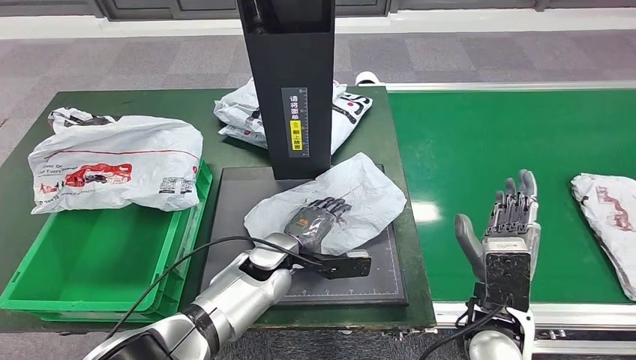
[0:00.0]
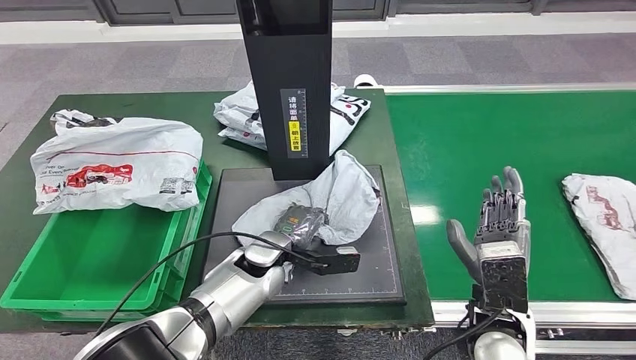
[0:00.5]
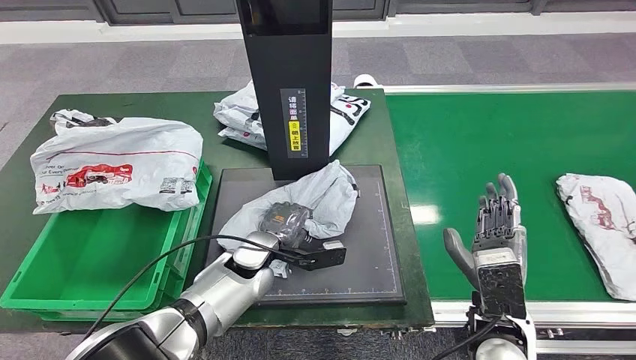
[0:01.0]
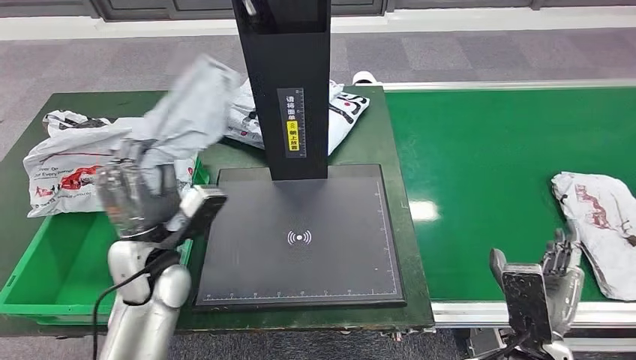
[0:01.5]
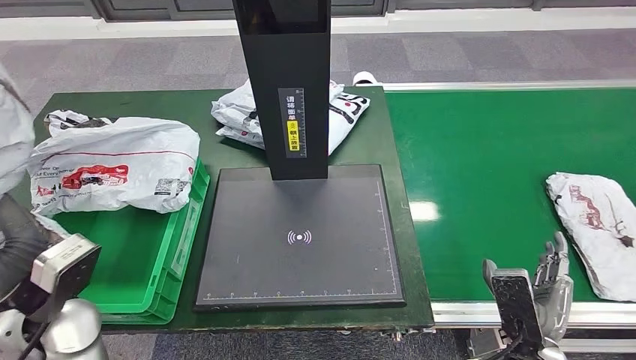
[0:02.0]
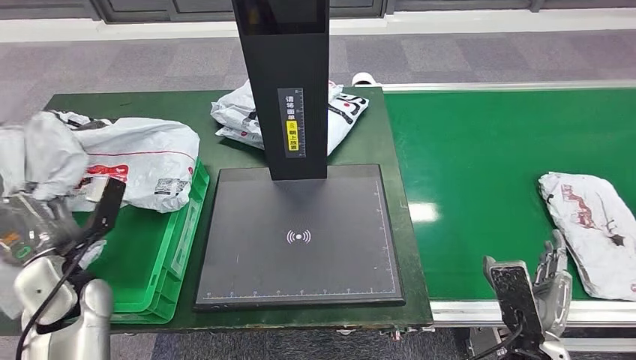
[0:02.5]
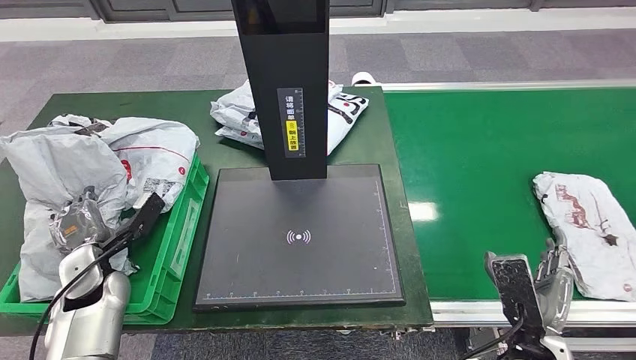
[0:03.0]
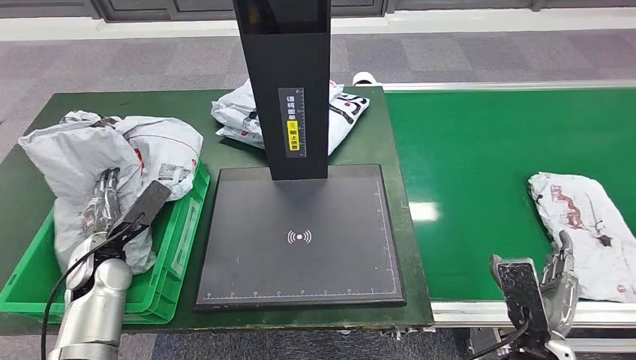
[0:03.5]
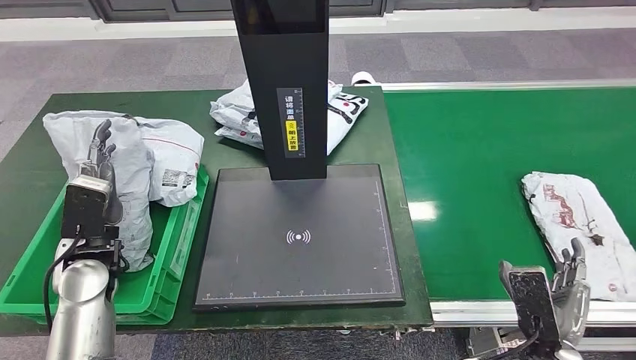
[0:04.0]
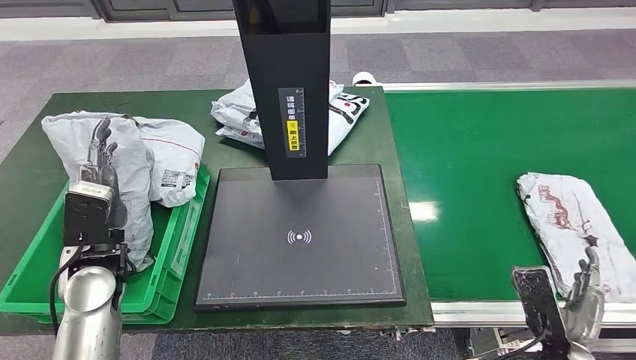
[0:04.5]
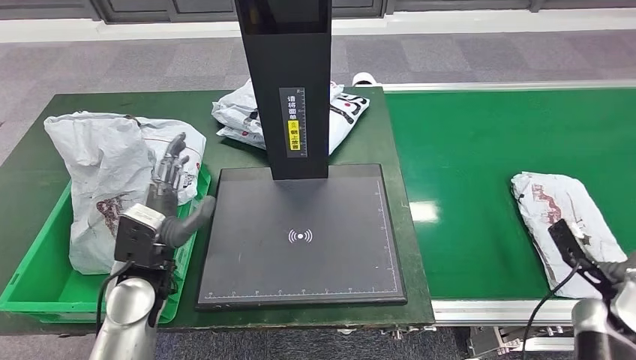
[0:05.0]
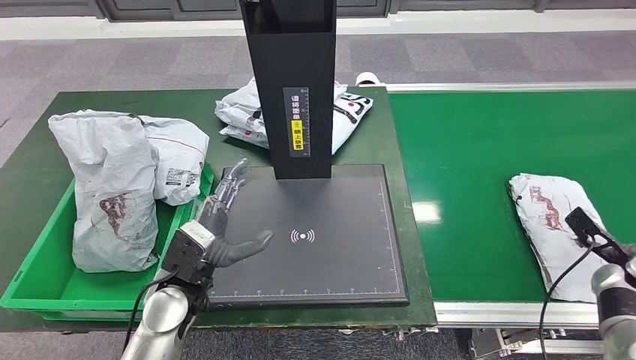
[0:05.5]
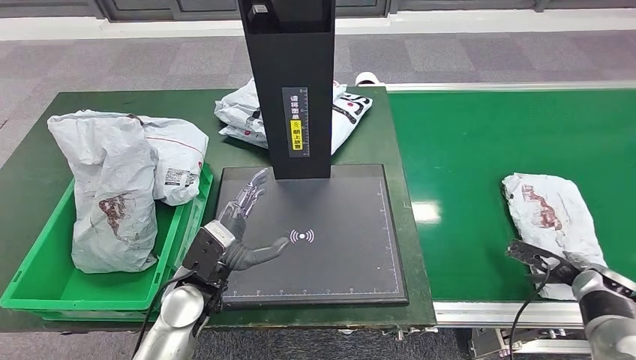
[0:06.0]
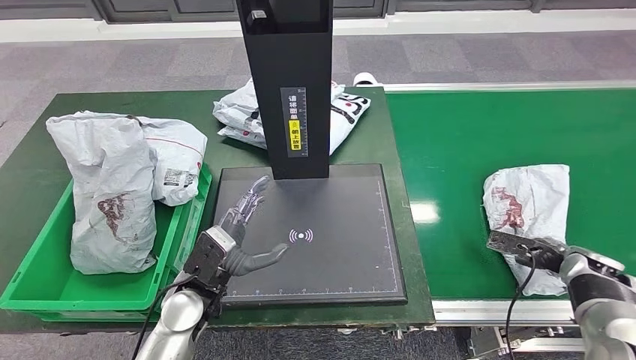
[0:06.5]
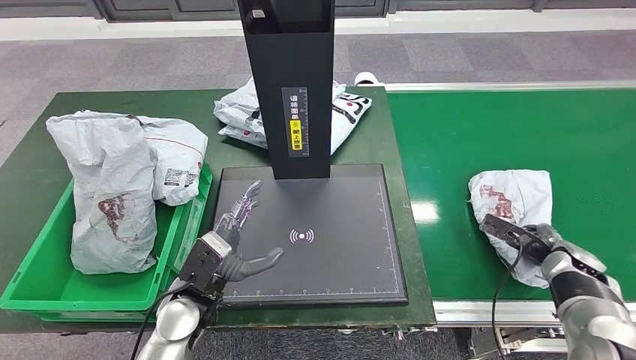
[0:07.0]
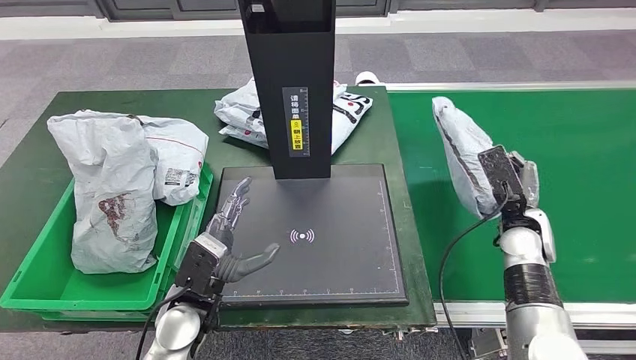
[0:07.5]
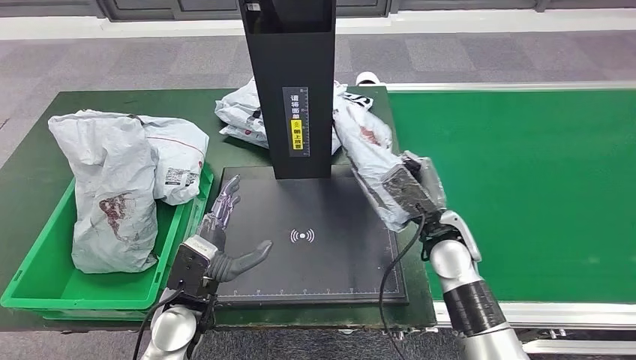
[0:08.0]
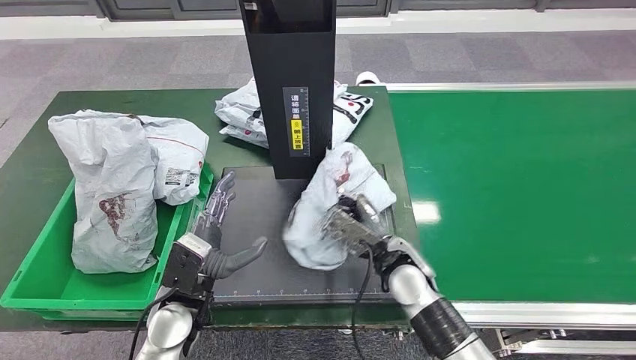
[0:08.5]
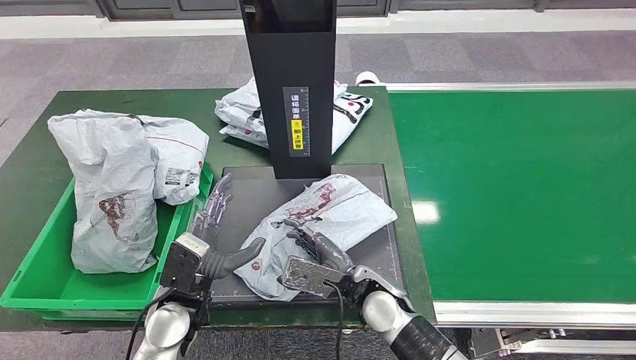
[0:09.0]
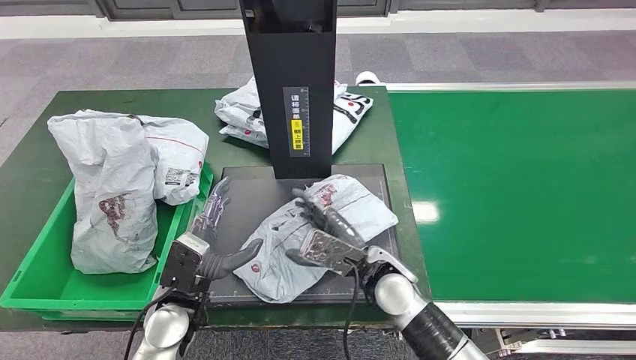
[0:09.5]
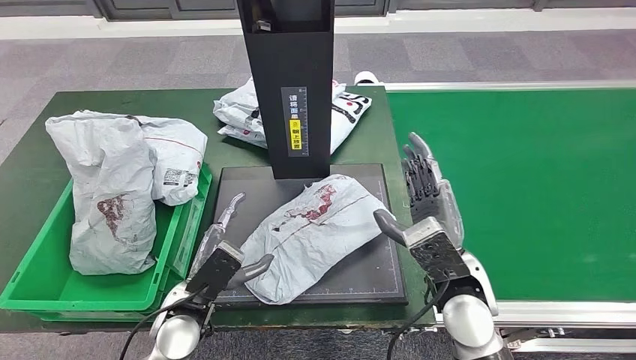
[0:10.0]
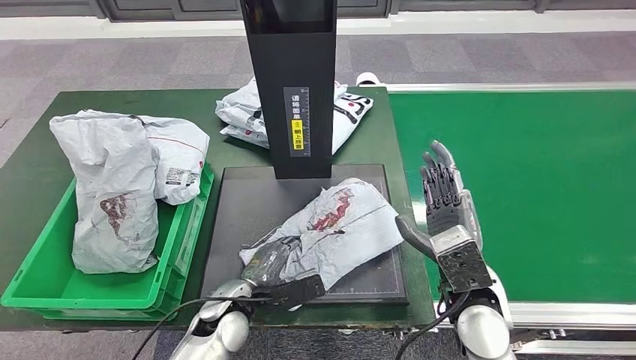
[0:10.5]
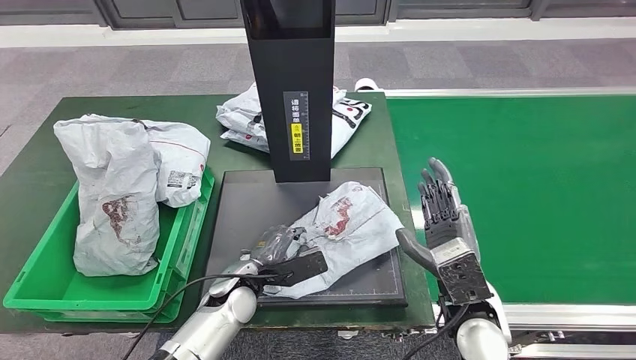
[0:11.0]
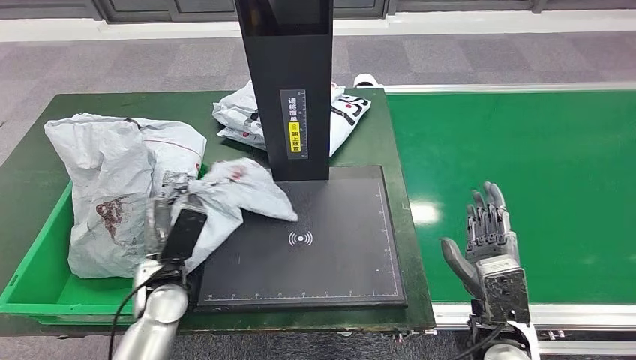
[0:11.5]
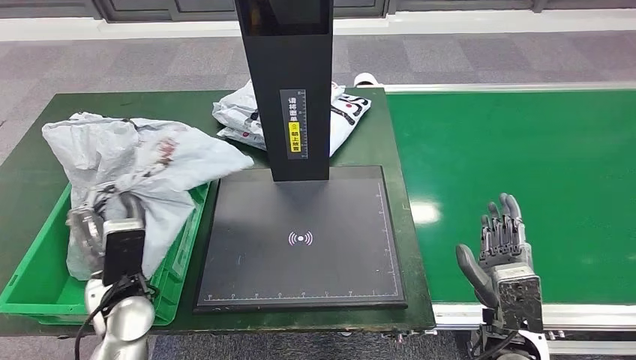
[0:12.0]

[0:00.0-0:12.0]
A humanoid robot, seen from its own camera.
Step, 0:02.0 to 0:05.0: Place the parcel into the delivery box.
Step, 0:05.5 to 0:08.5: Pick up the parcel from the conveyor belt.
Step, 0:09.0 to 0:11.0: Place the parcel onto the inbound machine.

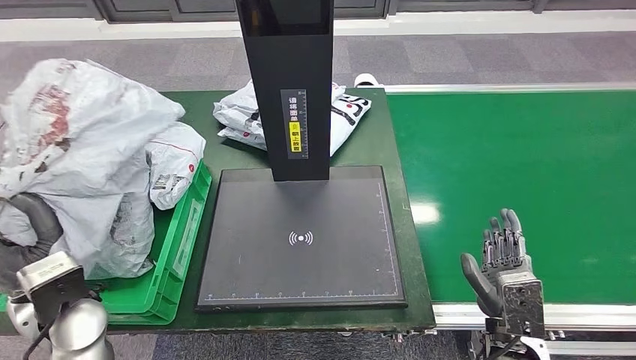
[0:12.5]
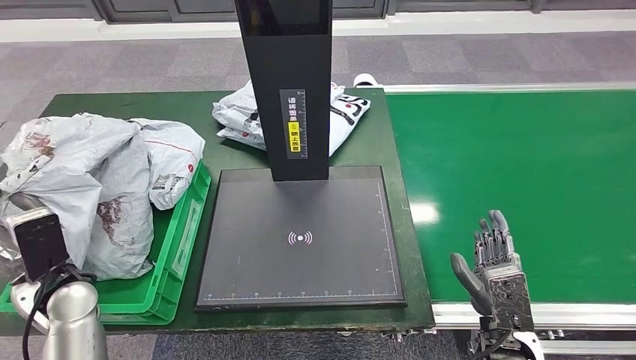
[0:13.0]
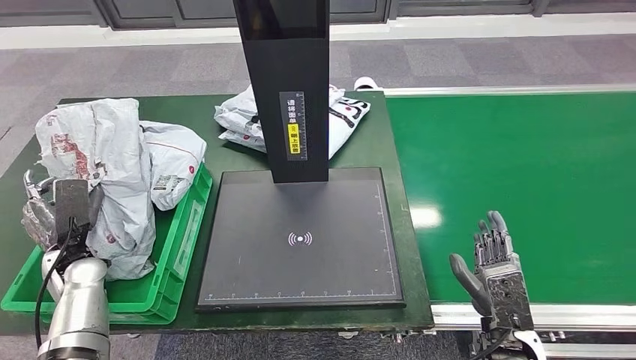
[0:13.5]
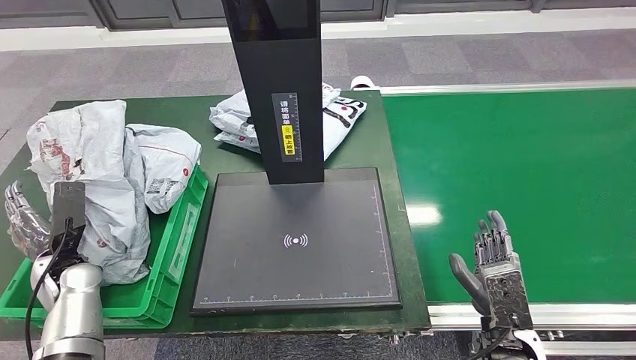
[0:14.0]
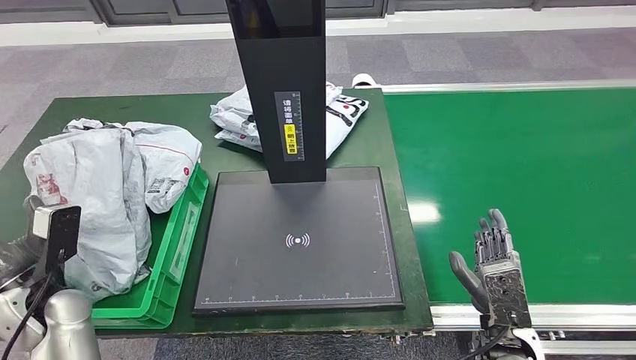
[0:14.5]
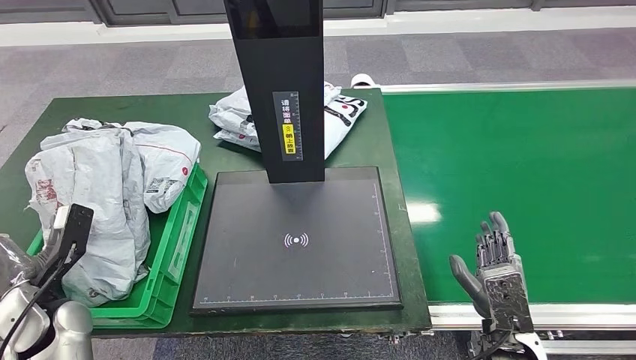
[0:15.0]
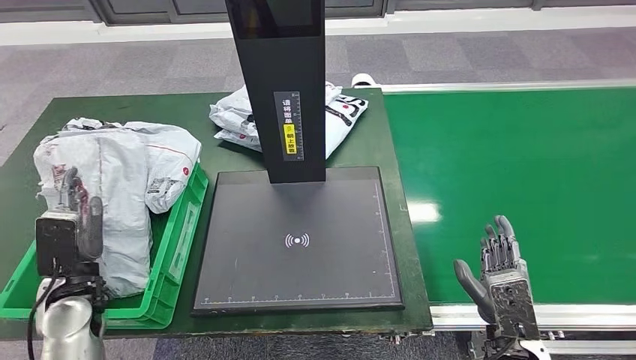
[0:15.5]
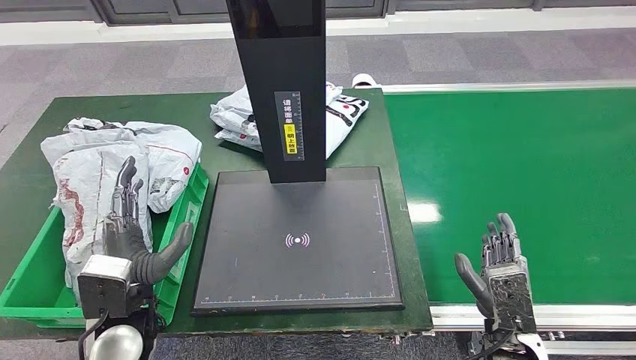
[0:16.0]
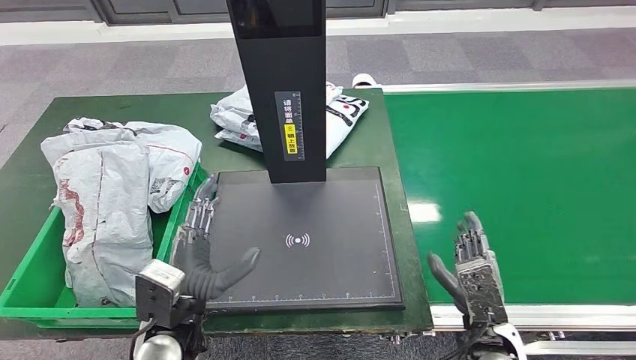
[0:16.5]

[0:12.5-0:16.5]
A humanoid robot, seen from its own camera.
Step, 0:13.0 to 0:16.5: Place the parcel into the delivery box.
0:14.5 to 0:16.5: The left hand is displaced to the right by approximately 20 cm.
